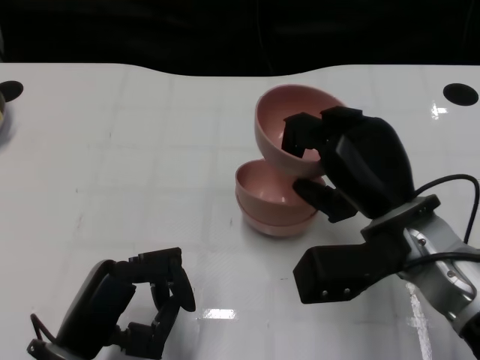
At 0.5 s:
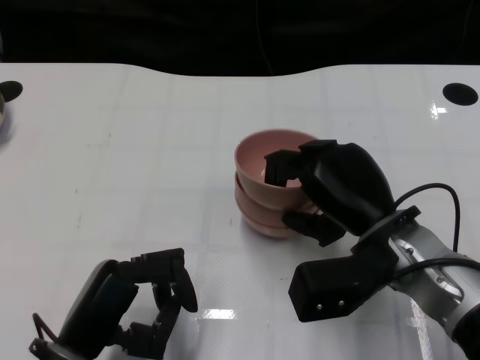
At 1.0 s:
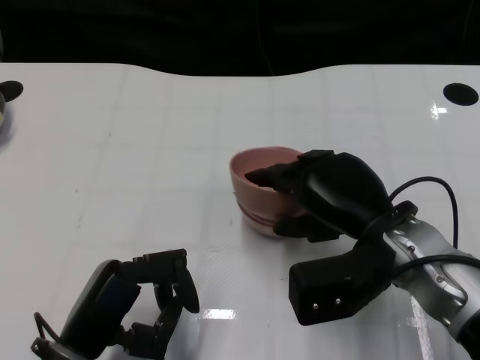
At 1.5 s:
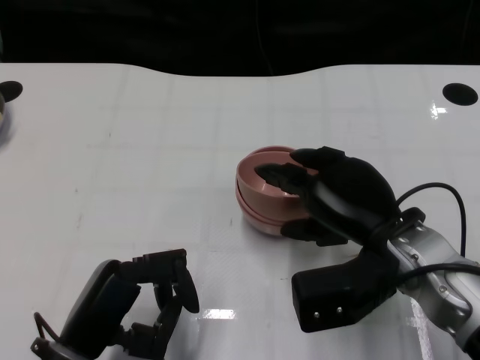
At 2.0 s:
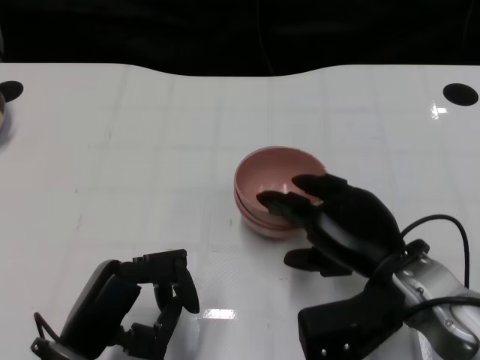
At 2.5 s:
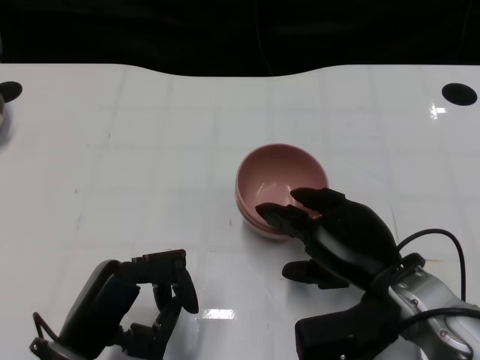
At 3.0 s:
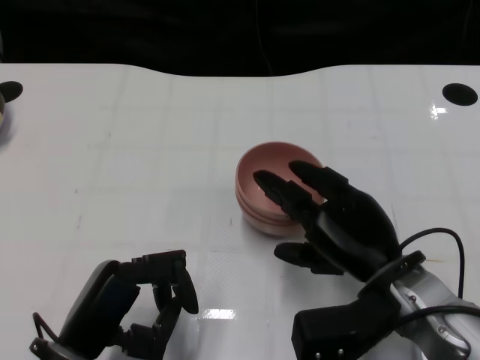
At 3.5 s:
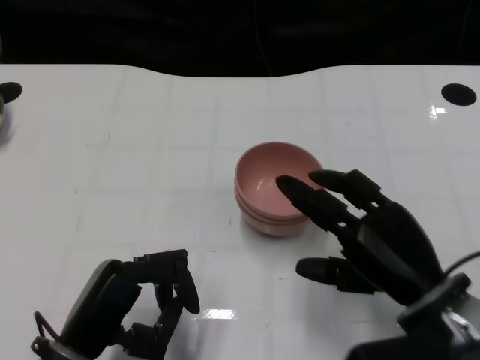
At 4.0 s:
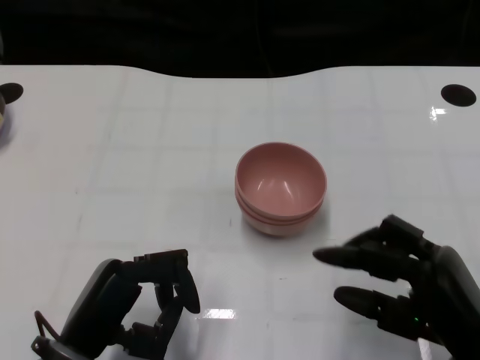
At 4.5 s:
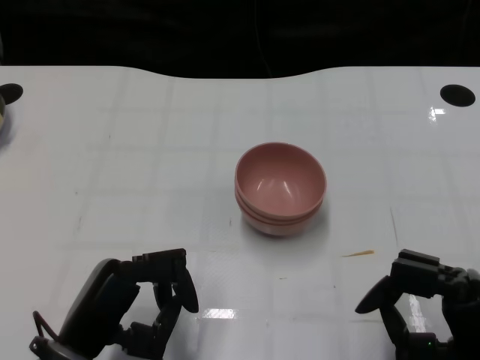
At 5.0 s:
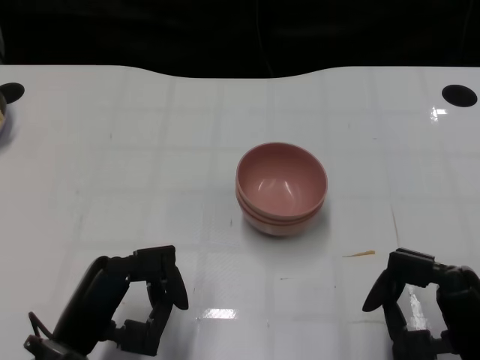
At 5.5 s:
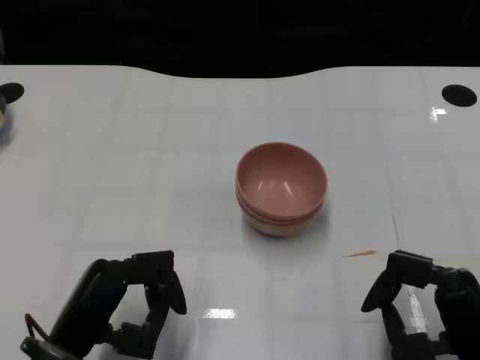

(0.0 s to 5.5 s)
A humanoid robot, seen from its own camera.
Task of the whole recording: Pick up the bowl on one side of the table and place it on top of the middle bowl, then pick up the bowl on the other side of the table and place it on top of the middle bowls.
Step, 0.0 s - 3.5 s: Place the bowl on the right onto the bowl in the middle with right gripper.
2.0 s - 3.5 s: The hands stay close to where they were, moving slightly.
3.5 s - 5.5 s: The right hand heads backward, covering about 5 cm.
